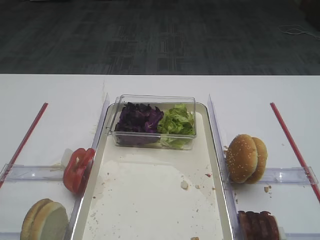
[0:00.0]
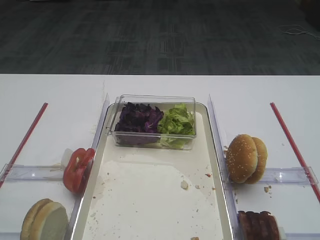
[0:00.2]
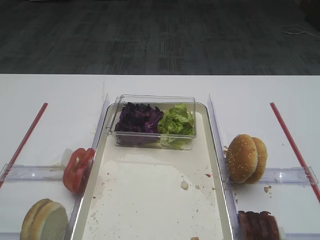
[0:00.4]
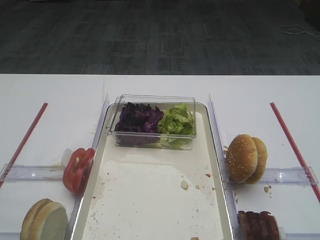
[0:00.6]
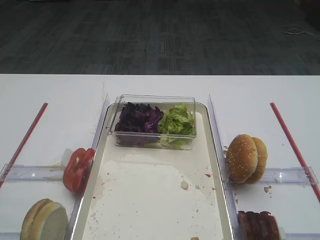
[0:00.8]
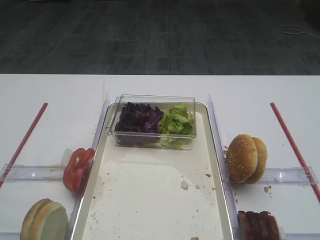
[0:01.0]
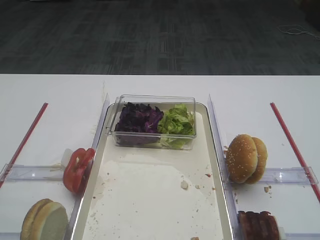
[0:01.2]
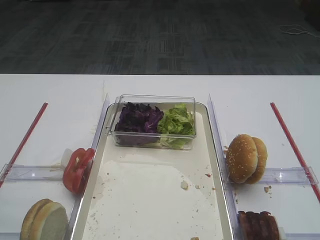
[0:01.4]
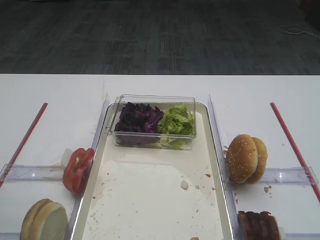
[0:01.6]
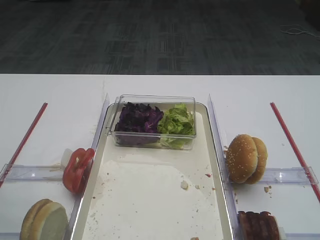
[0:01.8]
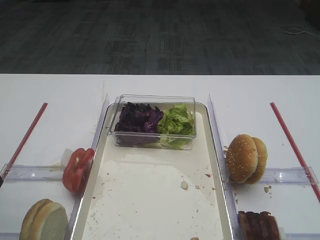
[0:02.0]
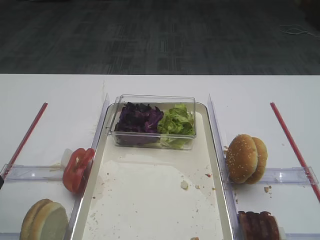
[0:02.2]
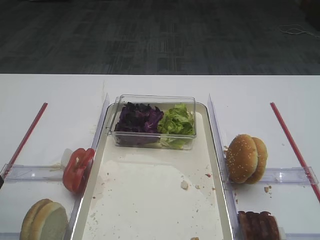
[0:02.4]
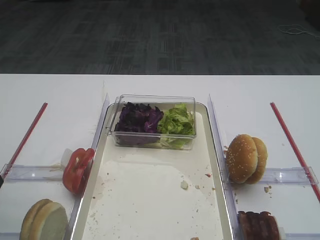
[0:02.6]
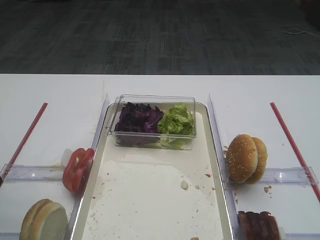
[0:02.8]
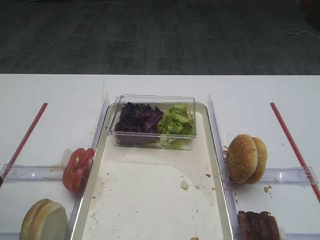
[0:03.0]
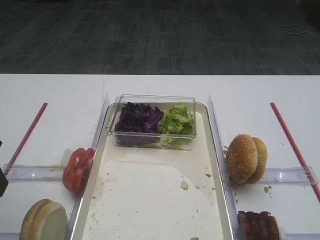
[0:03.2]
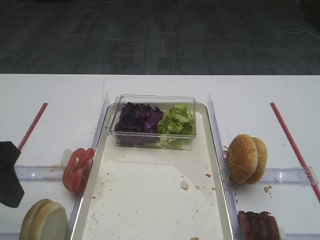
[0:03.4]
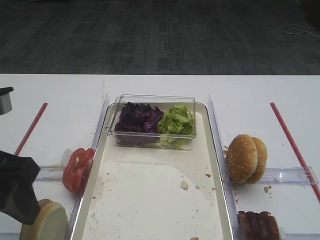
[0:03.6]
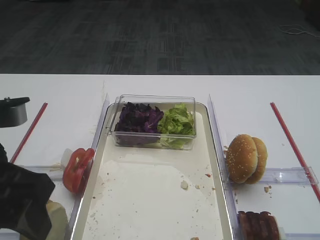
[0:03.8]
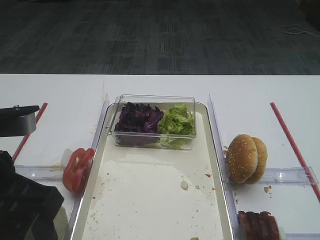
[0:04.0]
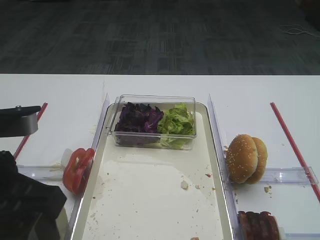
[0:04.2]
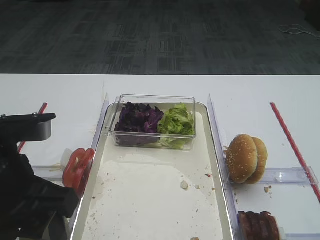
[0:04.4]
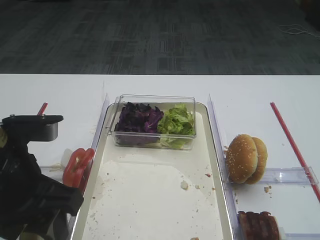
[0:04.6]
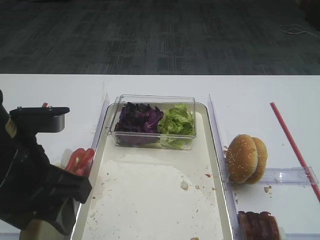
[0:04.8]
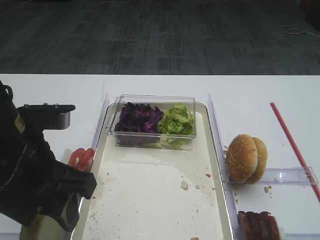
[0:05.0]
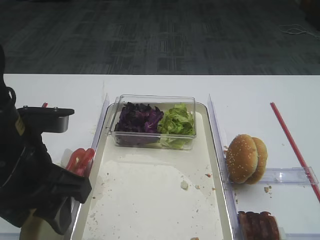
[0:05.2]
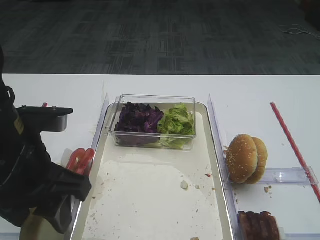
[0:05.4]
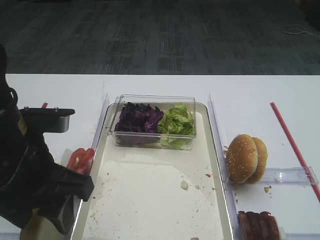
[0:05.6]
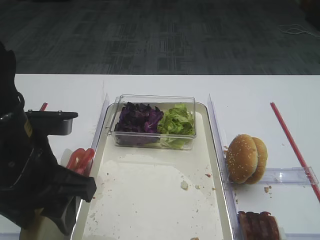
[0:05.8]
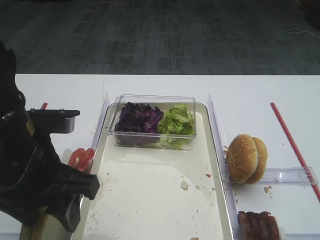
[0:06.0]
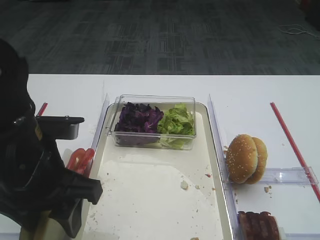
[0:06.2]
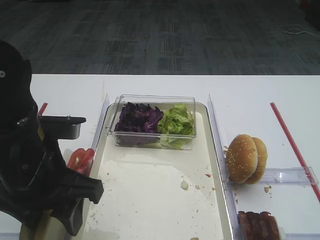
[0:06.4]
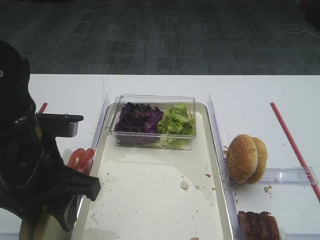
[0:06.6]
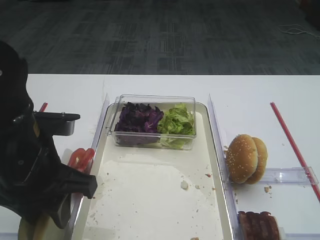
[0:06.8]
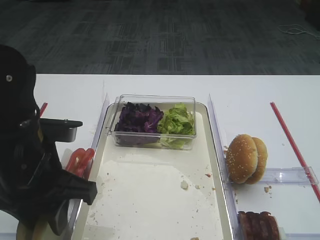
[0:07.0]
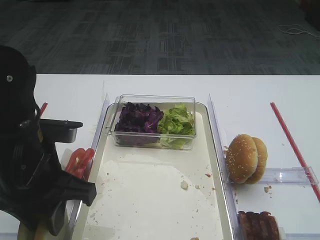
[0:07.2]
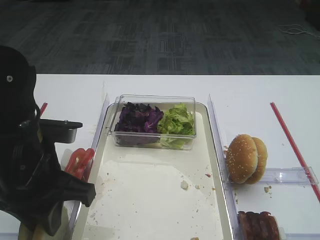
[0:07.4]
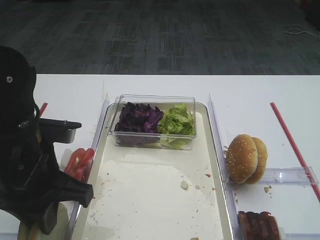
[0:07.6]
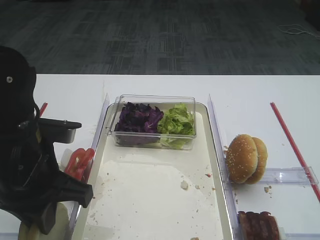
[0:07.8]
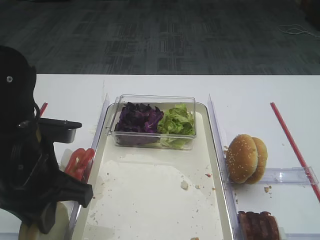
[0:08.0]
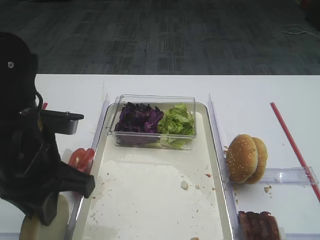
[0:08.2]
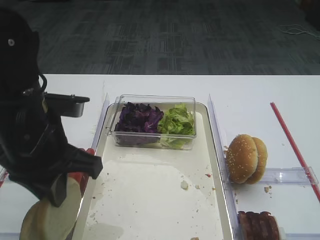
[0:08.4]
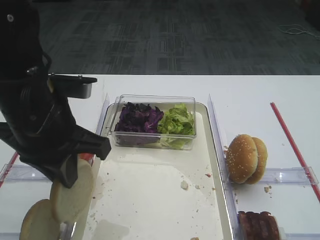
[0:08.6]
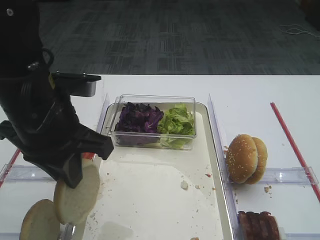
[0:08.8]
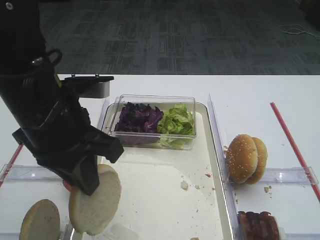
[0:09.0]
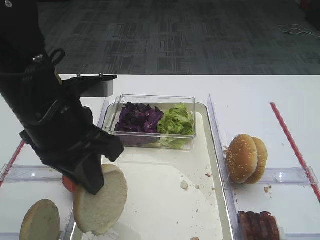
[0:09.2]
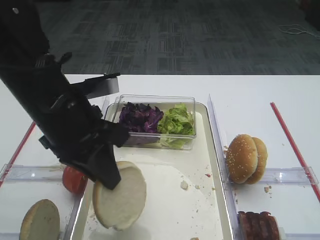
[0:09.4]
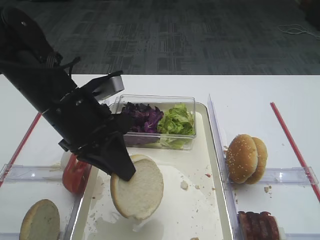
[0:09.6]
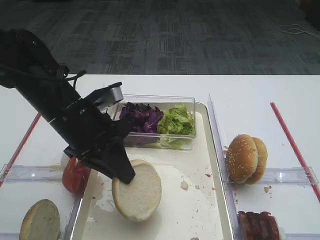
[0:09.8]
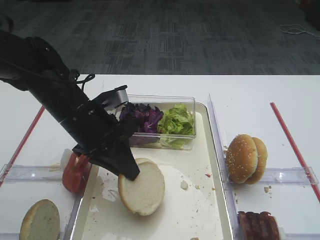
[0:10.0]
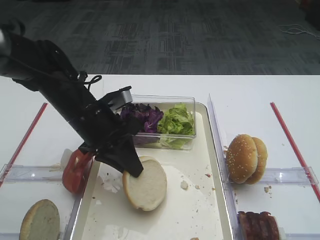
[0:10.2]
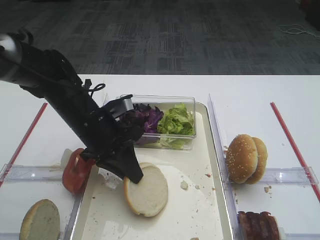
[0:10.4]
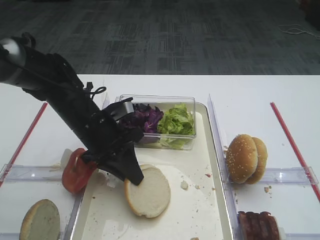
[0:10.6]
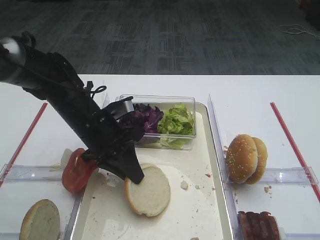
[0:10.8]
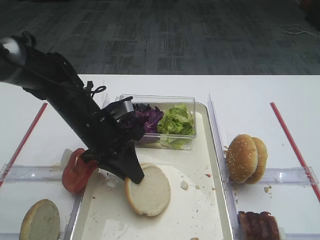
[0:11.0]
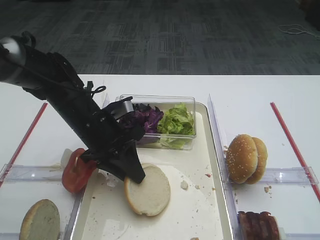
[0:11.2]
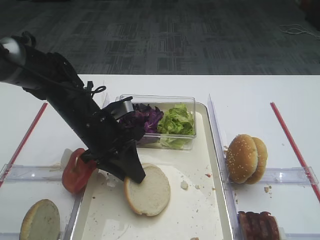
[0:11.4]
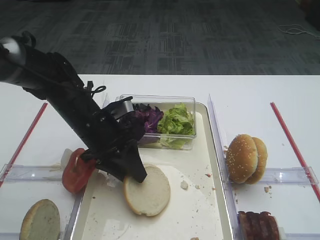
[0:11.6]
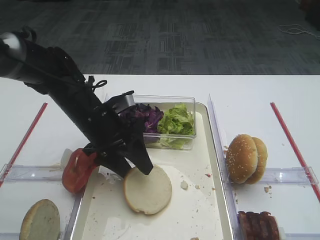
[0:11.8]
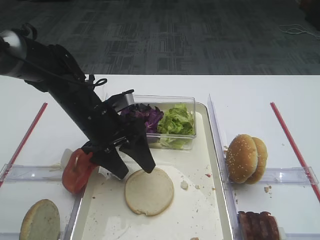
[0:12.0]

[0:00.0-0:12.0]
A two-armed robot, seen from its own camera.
Step, 0.0 to 8.6 s: Pick up the bread slice with the left gripper.
3.0 to 4.4 s: The left gripper heads to the right, covering roughly 10 cm.
4.4 to 6.0 s: There are only small adjustments of the grippers.
6.0 to 7.6 s: The left gripper closes.
7.6 to 9.0 s: The left gripper shifts roughly 5 cm upward.
9.0 to 10.4 s: The left gripper goes about 15 cm downward and forward.
10.4 to 12.0 s: The left gripper opens up.

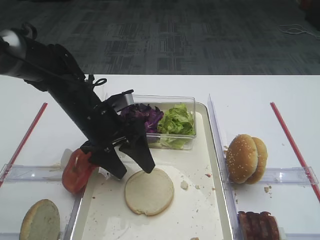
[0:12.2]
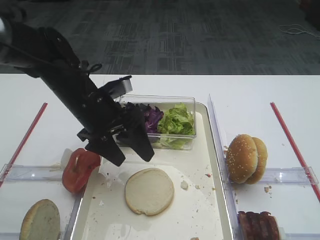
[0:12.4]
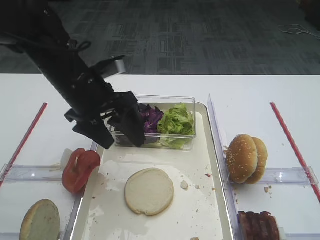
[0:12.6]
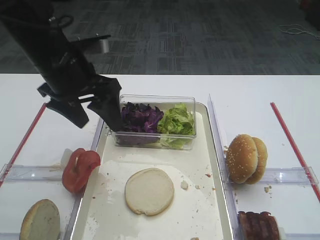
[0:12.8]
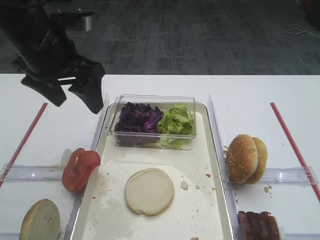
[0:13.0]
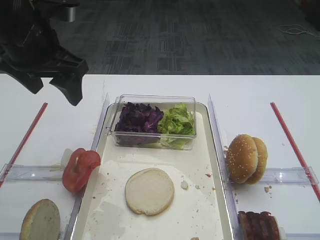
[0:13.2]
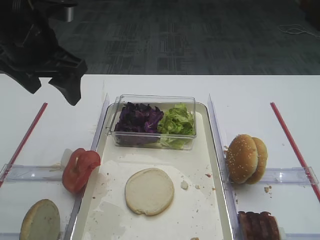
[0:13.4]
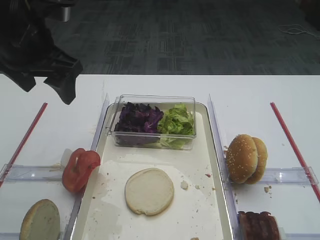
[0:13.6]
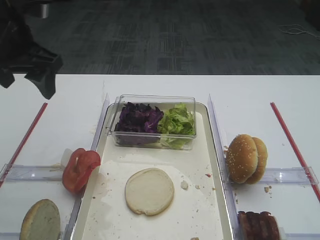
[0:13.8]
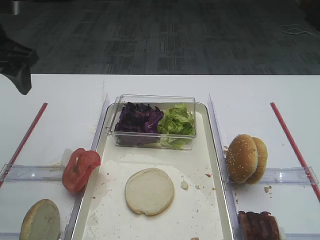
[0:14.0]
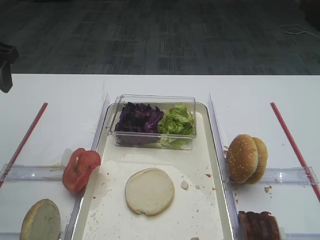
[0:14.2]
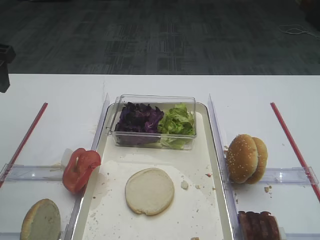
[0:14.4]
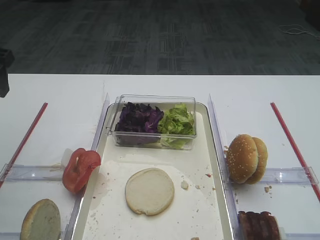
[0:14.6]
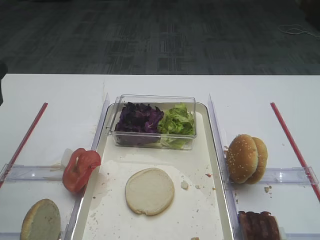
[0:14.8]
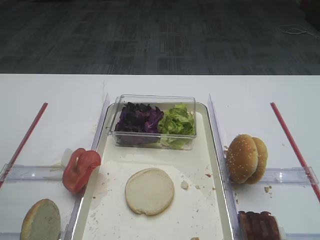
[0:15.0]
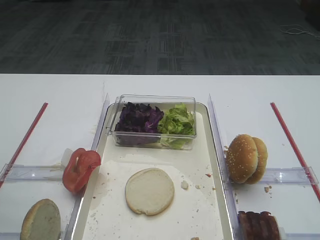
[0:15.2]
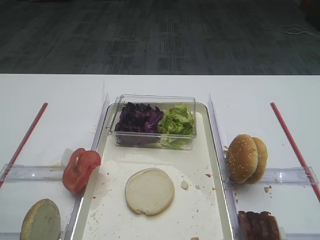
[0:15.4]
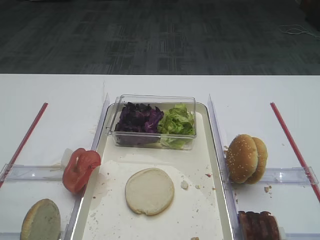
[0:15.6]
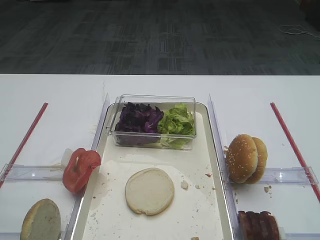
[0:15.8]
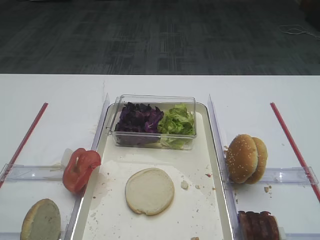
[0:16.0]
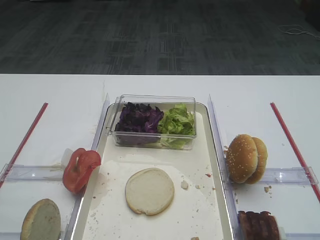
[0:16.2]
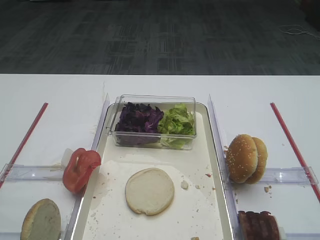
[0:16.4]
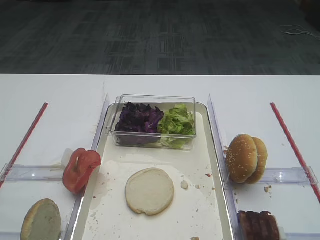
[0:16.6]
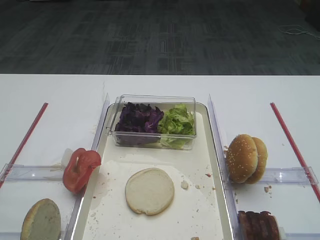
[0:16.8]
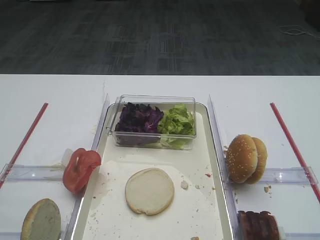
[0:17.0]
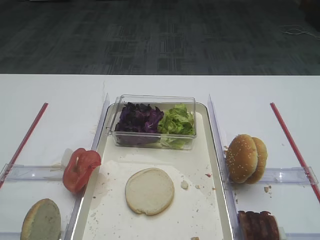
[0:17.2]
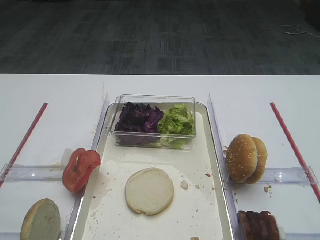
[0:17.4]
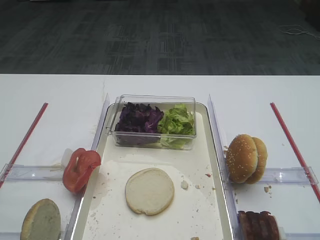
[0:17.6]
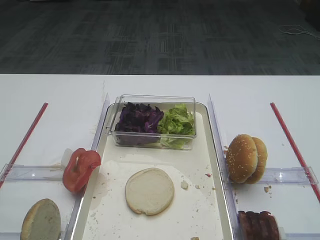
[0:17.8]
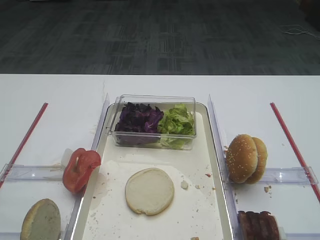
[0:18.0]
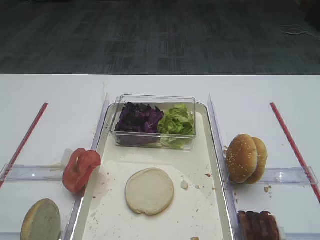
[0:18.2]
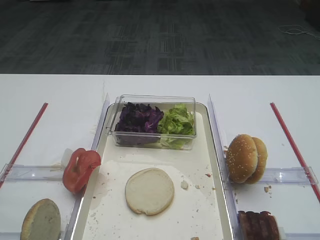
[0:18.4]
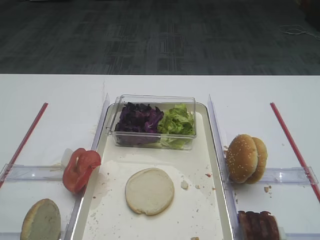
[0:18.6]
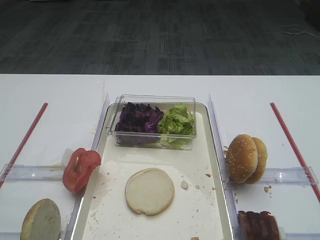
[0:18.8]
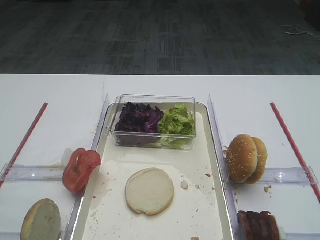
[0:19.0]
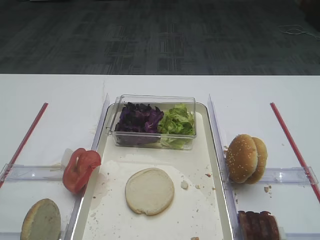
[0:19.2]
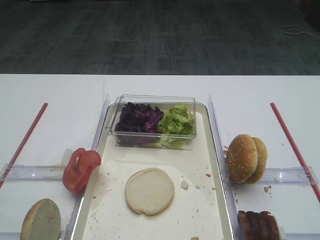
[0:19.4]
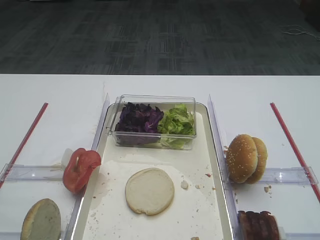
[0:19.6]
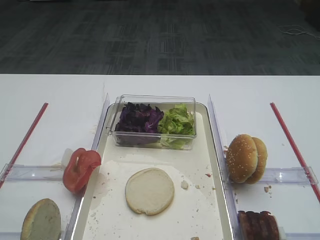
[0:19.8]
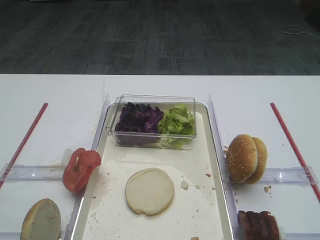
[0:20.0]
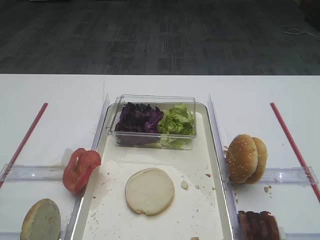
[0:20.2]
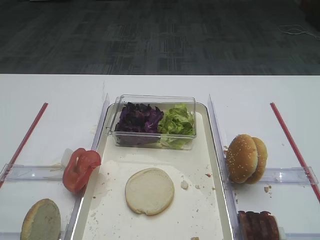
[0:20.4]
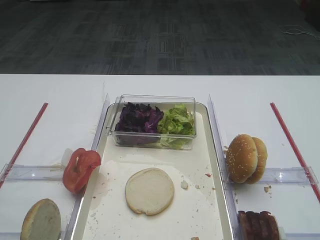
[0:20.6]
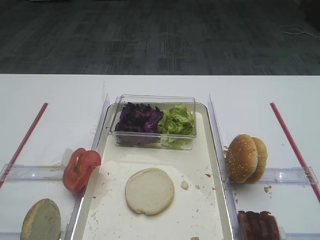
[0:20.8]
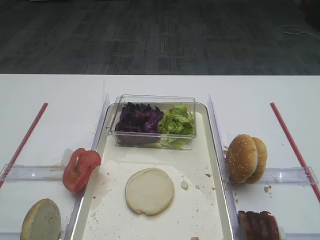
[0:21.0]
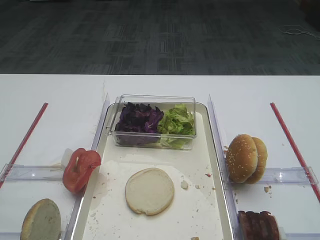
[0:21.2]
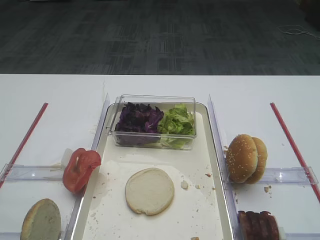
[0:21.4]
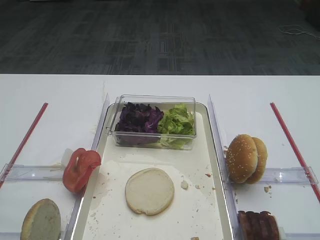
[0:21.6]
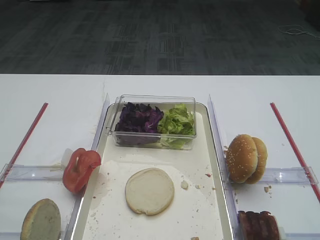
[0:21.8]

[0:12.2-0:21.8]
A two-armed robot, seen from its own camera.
Step, 12.2 to 14.8 s: Place the bread slice on the tray with the left gripper.
12.2 to 13.8 s: The left gripper is displaced upward and to the left by some 20 cm.
13.8 to 15.4 s: The left gripper travels backward and to the left by approximately 15 cm.
17.0 to 21.8 s: Both grippers stay put.

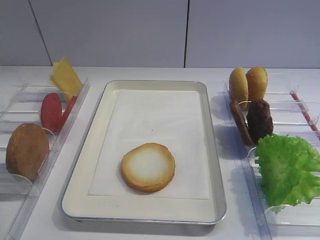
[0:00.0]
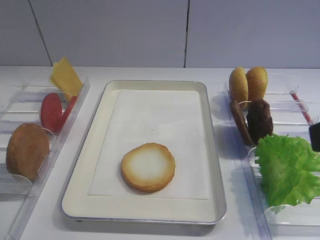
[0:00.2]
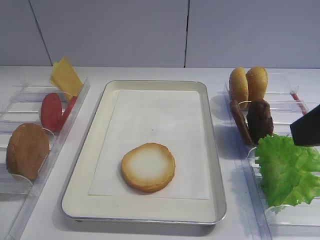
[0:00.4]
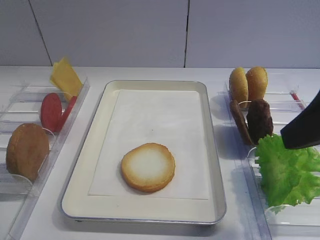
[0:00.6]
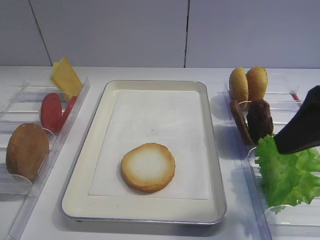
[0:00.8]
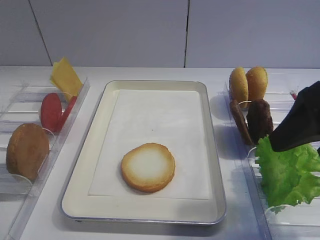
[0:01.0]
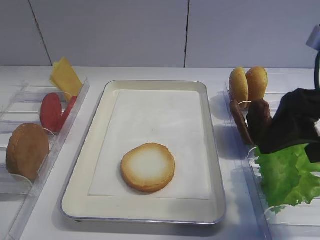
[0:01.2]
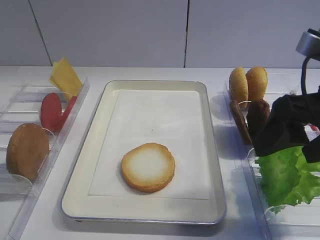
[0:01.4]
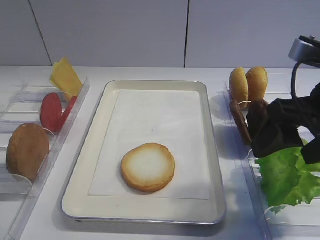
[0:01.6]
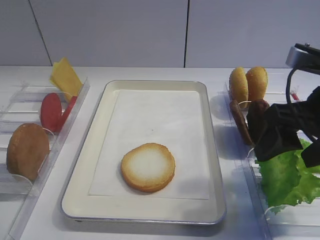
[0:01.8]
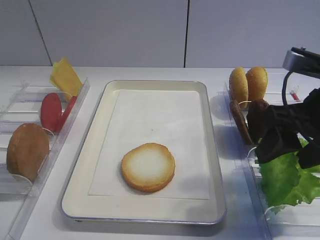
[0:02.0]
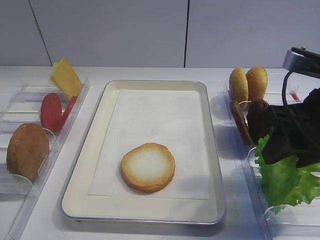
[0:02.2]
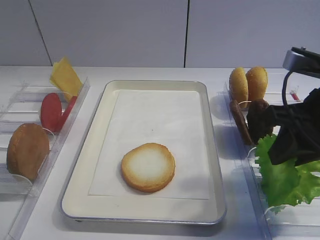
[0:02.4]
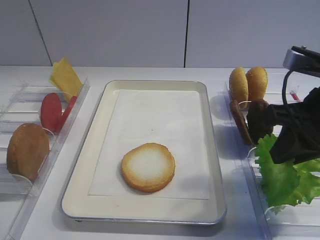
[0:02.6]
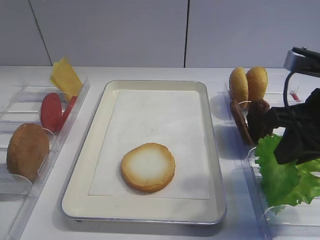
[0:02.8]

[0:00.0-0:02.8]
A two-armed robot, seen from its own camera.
0.0 to 1.4 s: The right gripper shifts some 15 cm forward and downward.
1.4 to 2.8 s: The right gripper closes up.
